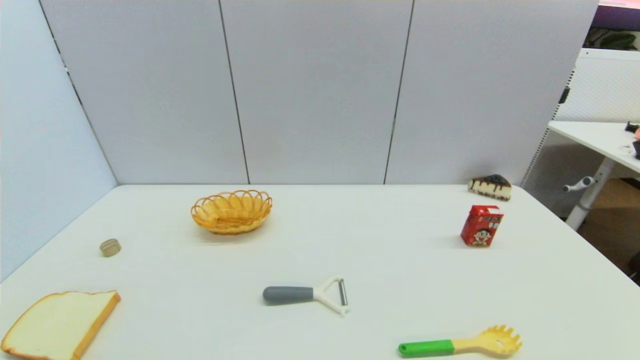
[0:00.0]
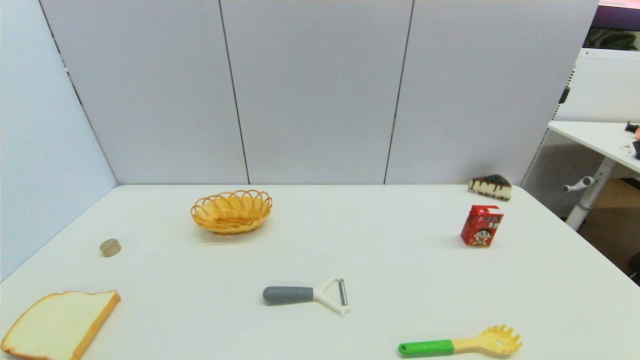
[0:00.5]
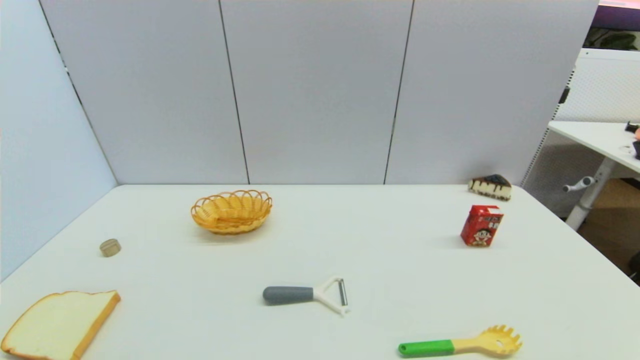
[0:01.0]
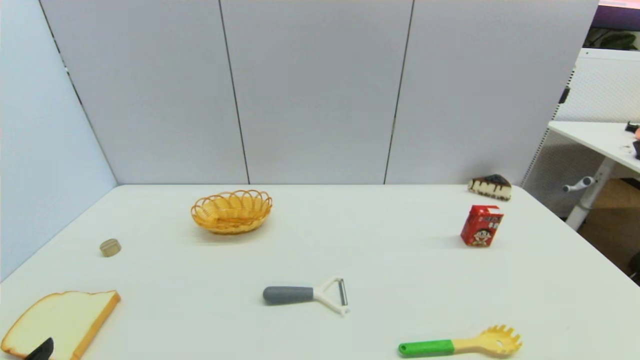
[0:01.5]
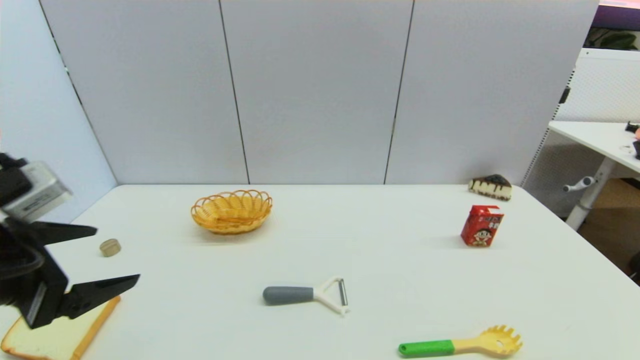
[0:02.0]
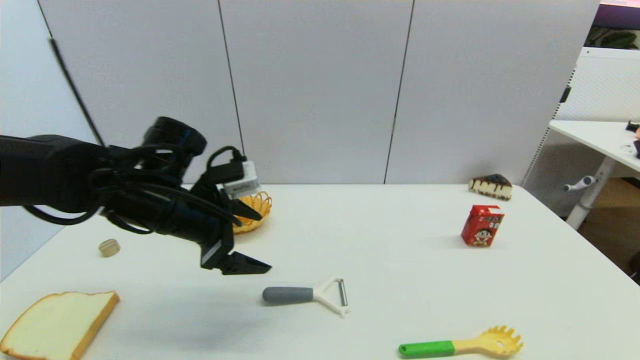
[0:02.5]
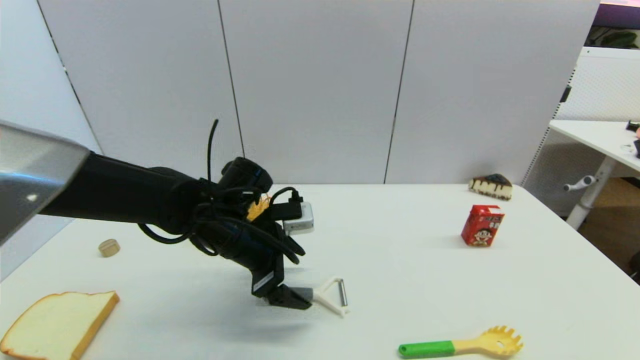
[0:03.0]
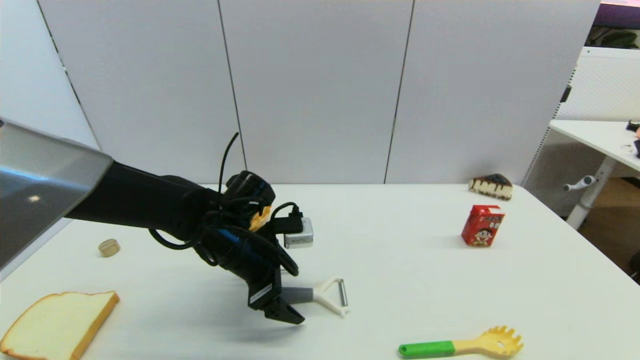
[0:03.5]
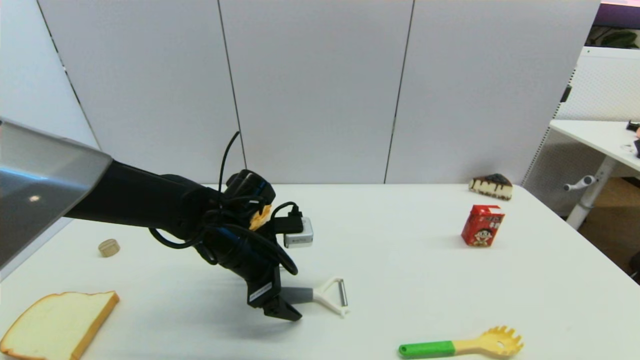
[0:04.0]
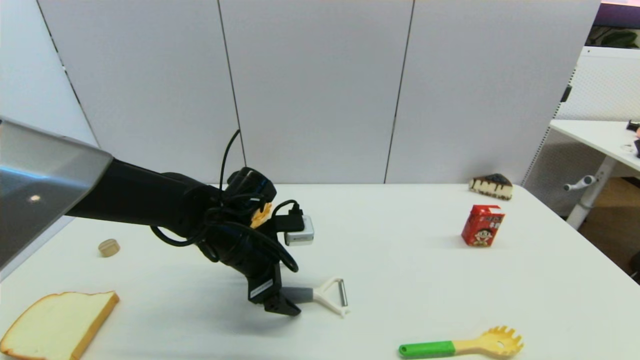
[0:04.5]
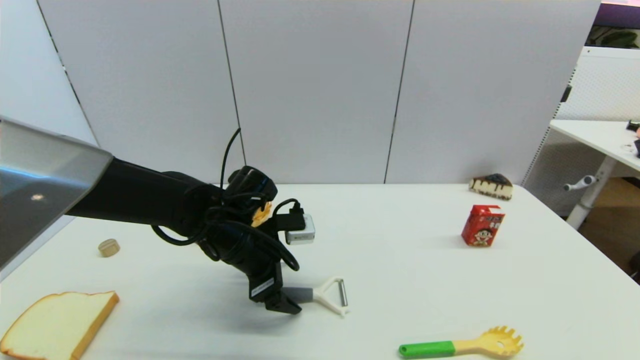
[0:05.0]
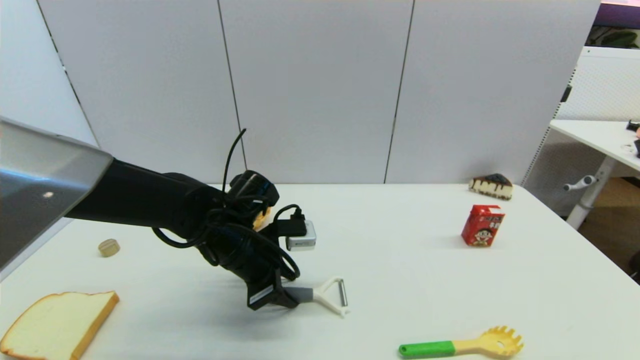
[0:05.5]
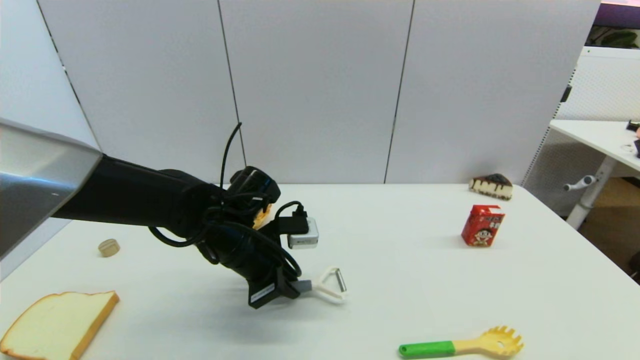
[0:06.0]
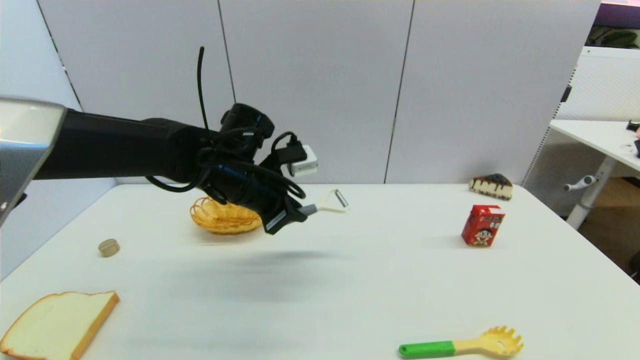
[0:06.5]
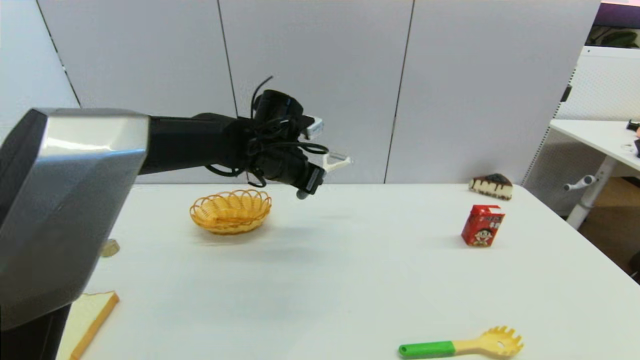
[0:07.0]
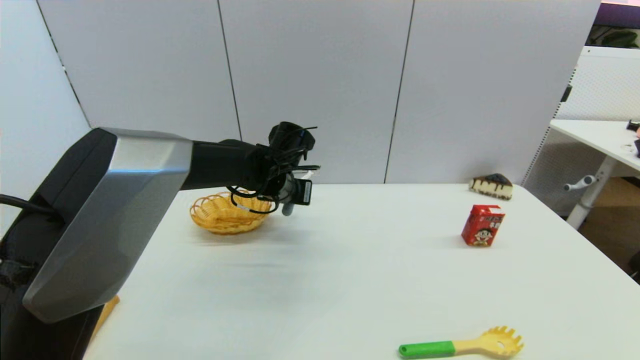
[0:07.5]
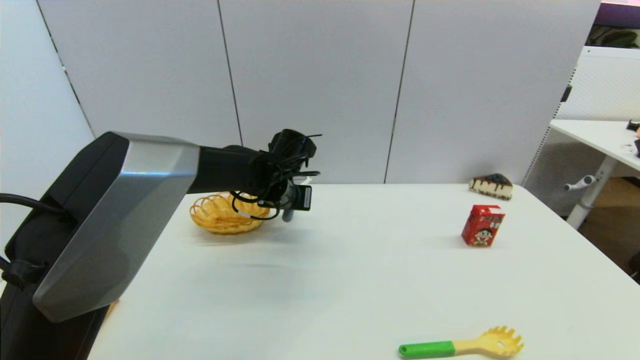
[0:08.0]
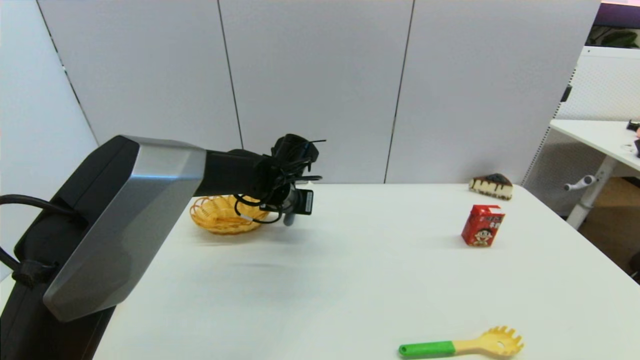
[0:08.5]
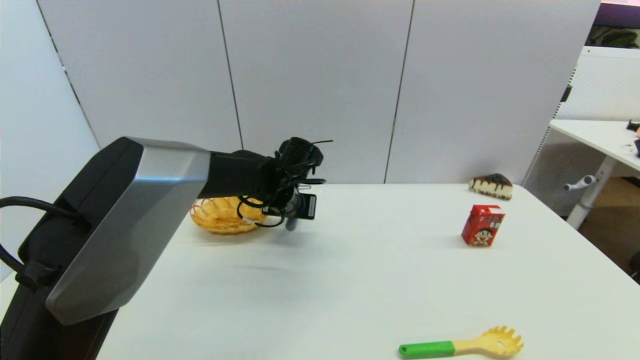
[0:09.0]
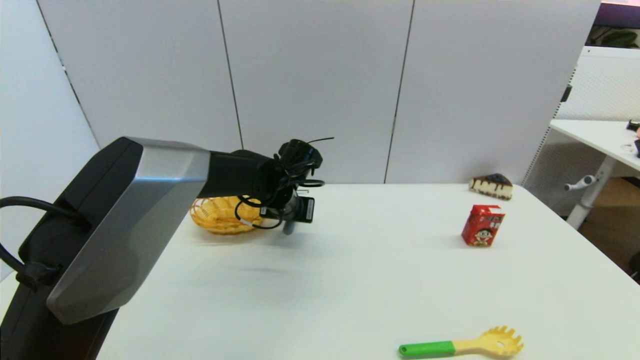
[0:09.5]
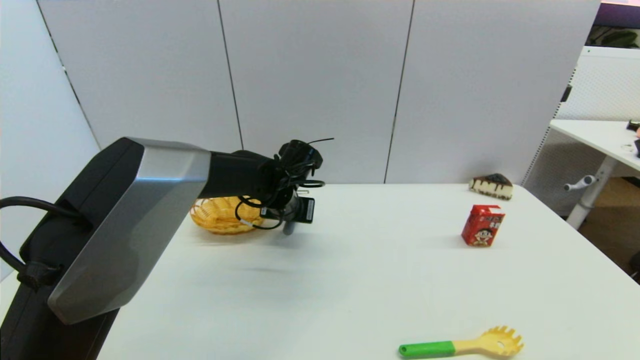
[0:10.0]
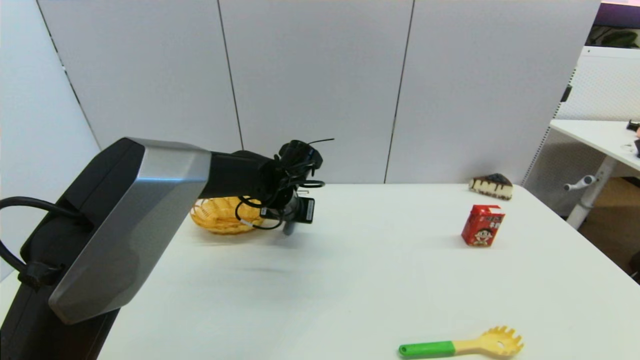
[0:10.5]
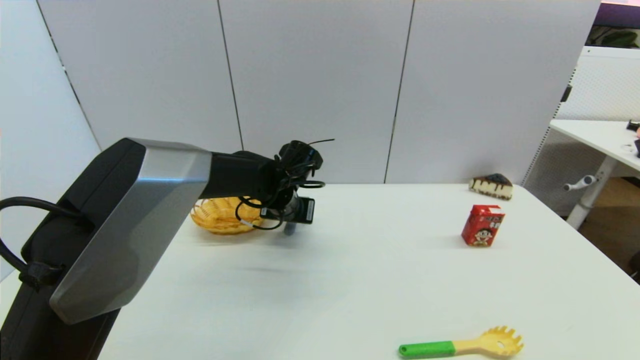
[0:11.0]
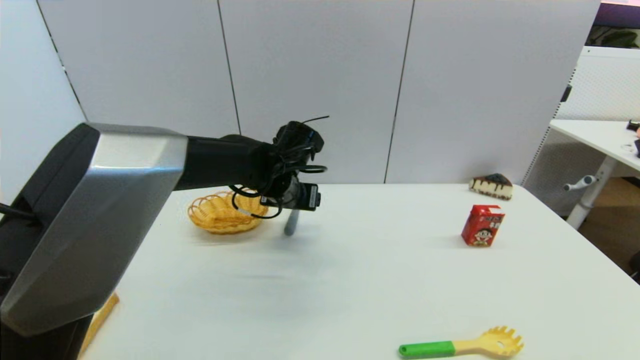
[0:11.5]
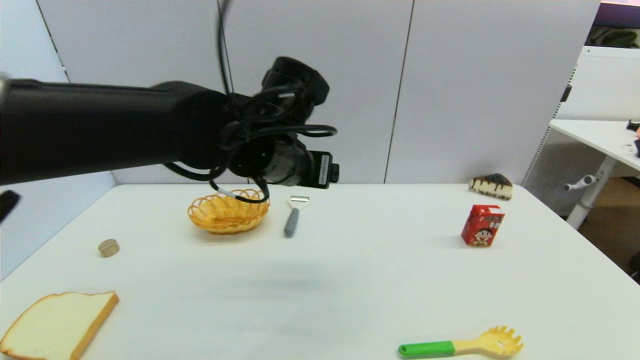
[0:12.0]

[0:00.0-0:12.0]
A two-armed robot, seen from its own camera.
Step, 0:01.5 to 0:06.0: Grasp the peeler with left gripper.
Step, 0:06.5 to 0:11.0: Place the peeler on the table with left gripper.
0:00.0 to 0:02.0: The left gripper moves forward and upward, some 20 cm.
0:02.0 to 0:04.0: The left gripper goes some 25 cm to the right, forward and downward.
0:04.0 to 0:06.0: The left gripper closes up.
0:06.0 to 0:08.0: The left gripper moves forward, approximately 10 cm.
0:08.0 to 0:10.0: The grippers make only small movements.
0:10.0 to 0:12.0: The left gripper heads upward and backward, covering approximately 15 cm, and opens up.

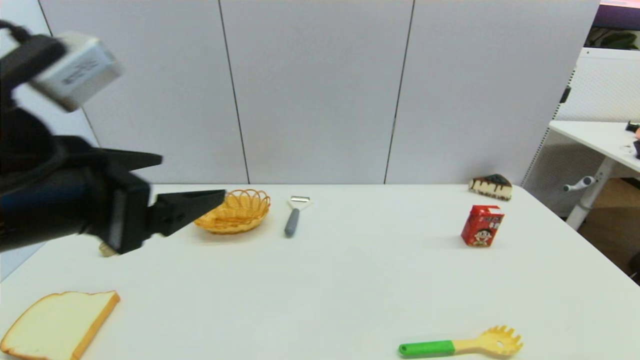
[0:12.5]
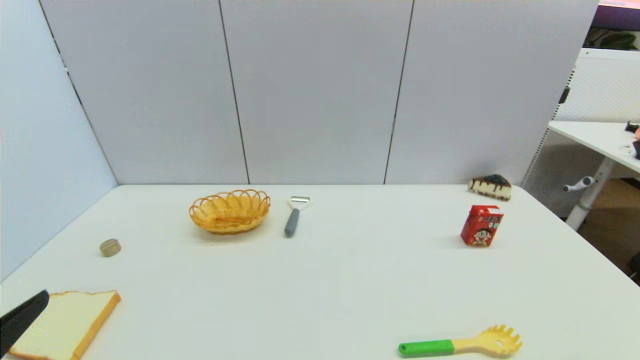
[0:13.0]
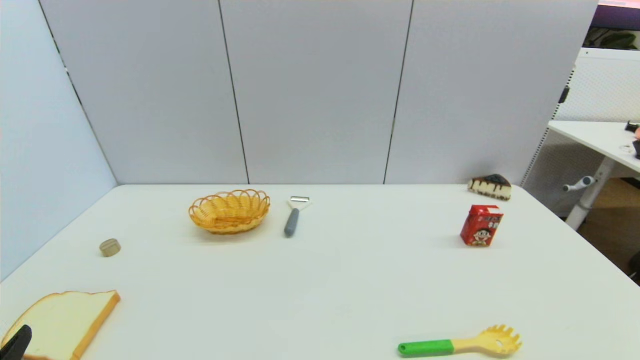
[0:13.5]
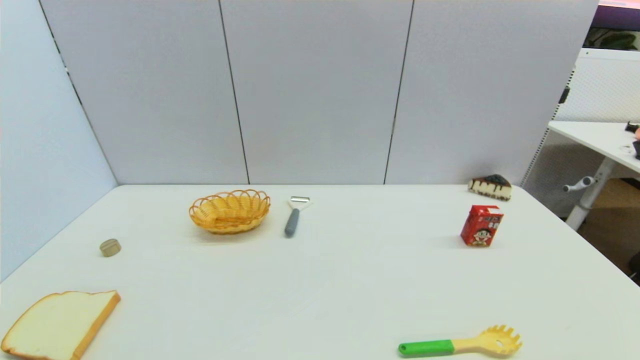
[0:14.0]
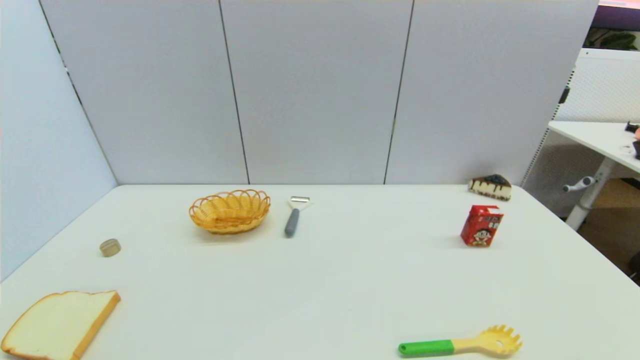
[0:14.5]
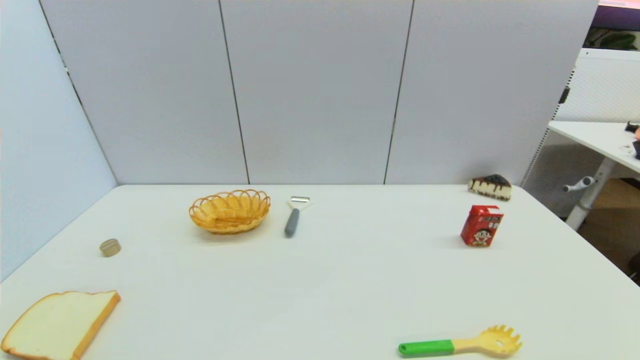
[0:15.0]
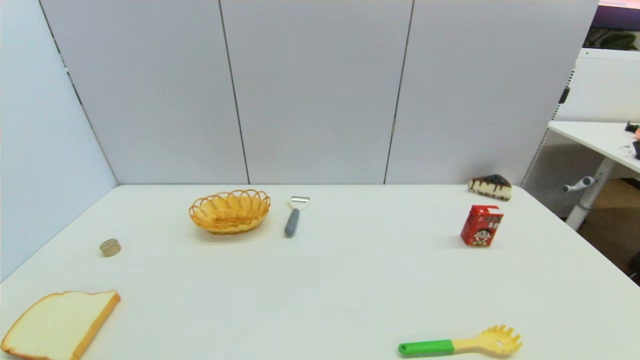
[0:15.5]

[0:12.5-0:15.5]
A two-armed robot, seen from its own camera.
0:12.5 to 0:14.0: The left gripper travels downward, backward and to the left by approximately 30 cm.
